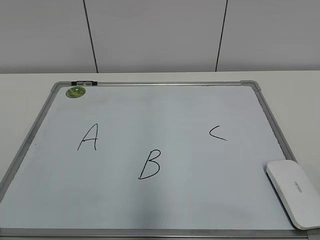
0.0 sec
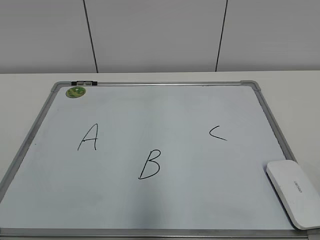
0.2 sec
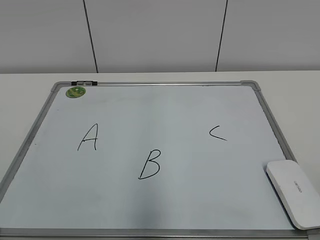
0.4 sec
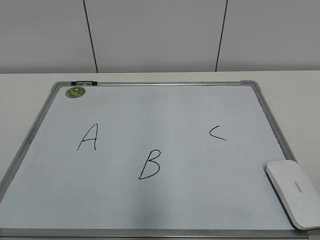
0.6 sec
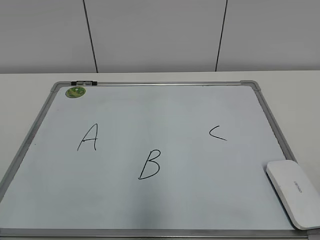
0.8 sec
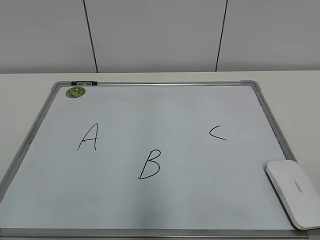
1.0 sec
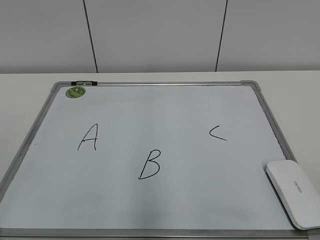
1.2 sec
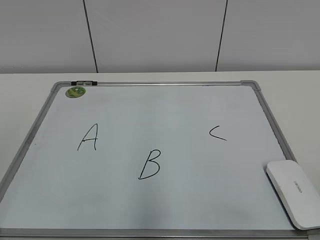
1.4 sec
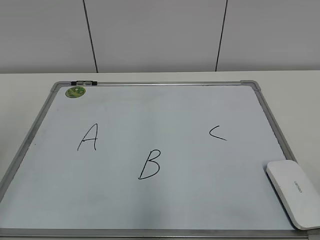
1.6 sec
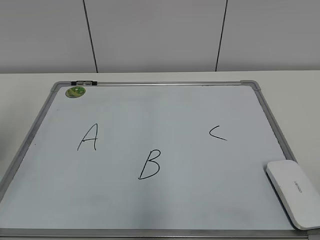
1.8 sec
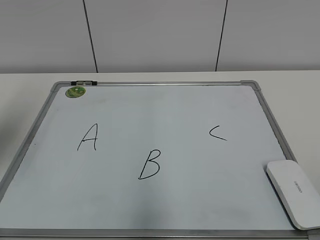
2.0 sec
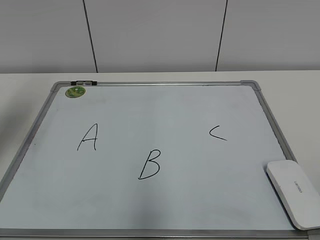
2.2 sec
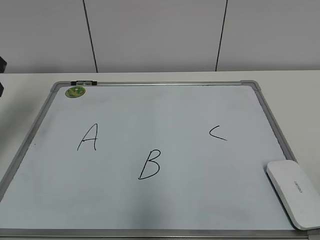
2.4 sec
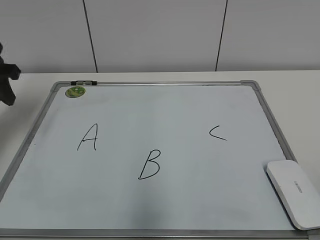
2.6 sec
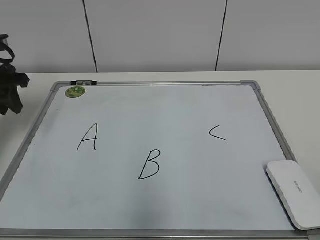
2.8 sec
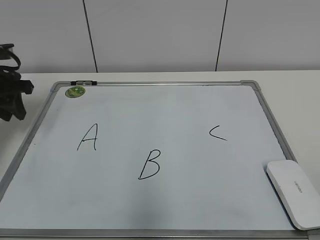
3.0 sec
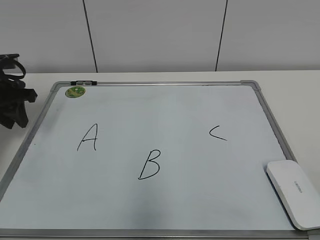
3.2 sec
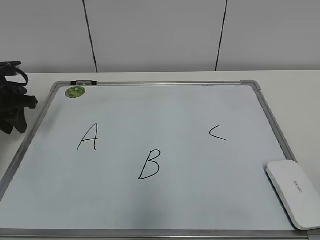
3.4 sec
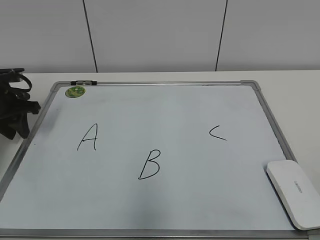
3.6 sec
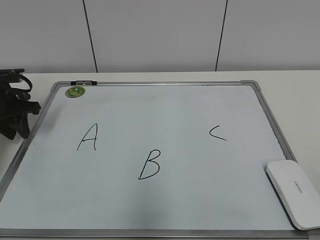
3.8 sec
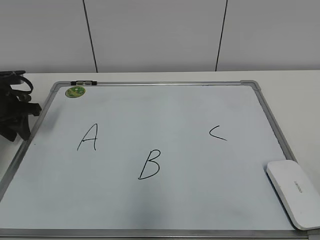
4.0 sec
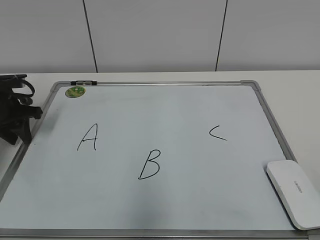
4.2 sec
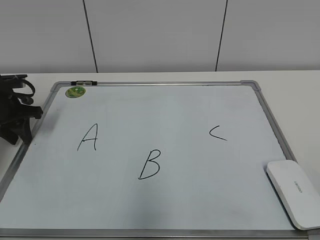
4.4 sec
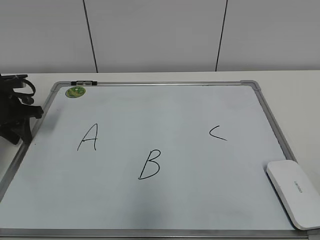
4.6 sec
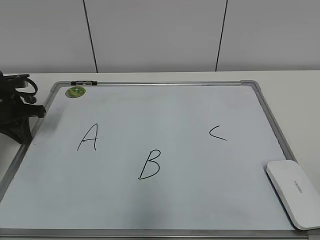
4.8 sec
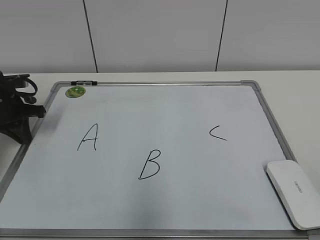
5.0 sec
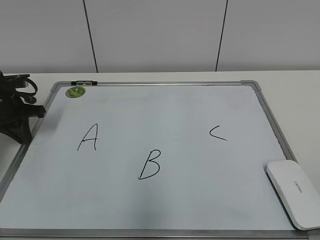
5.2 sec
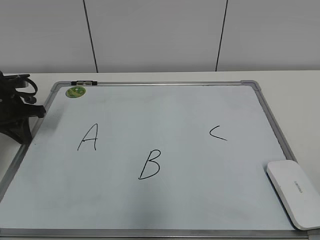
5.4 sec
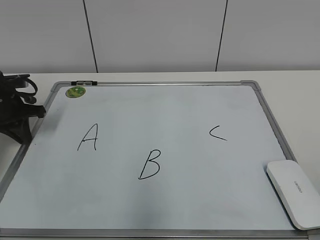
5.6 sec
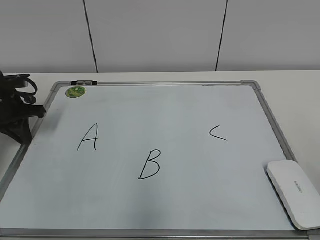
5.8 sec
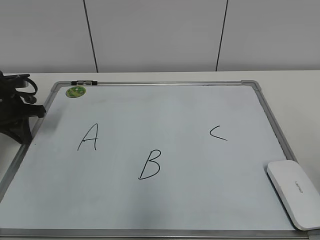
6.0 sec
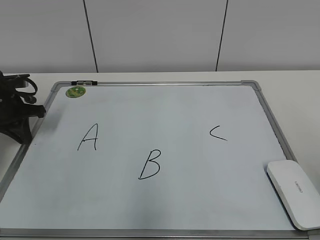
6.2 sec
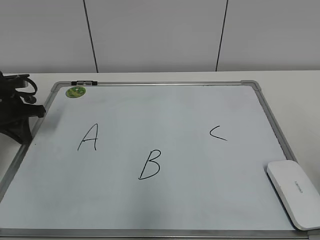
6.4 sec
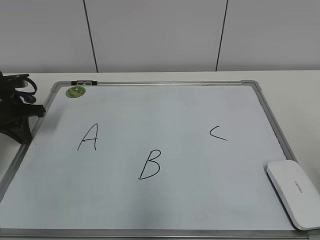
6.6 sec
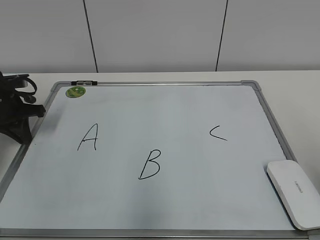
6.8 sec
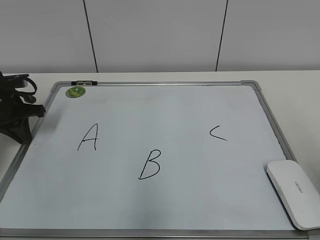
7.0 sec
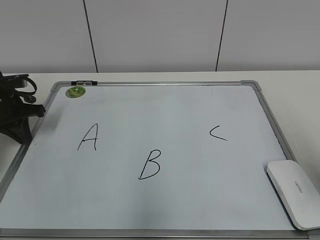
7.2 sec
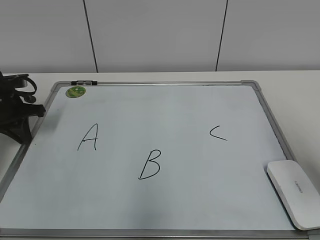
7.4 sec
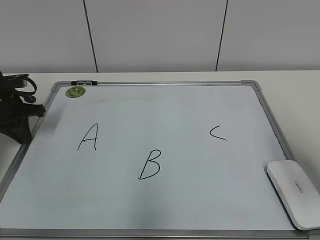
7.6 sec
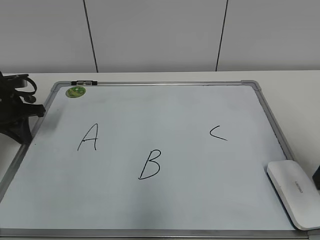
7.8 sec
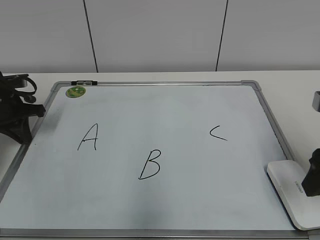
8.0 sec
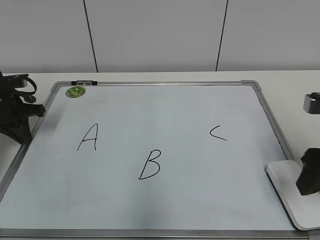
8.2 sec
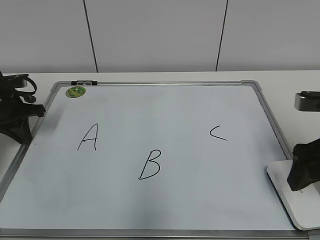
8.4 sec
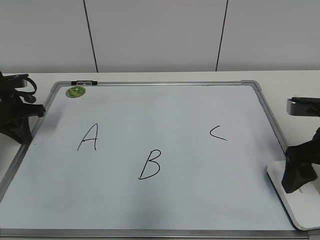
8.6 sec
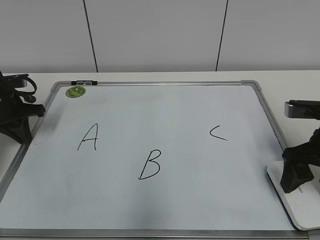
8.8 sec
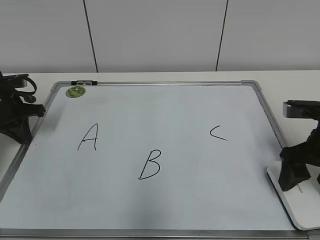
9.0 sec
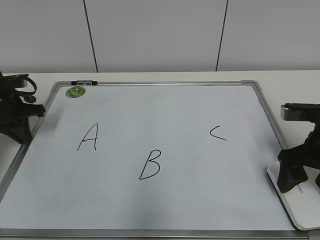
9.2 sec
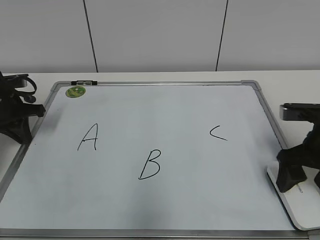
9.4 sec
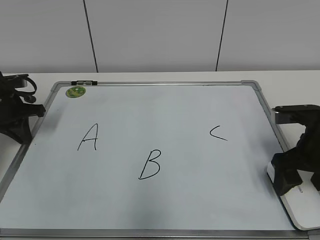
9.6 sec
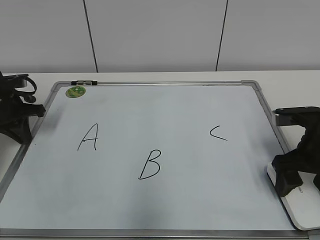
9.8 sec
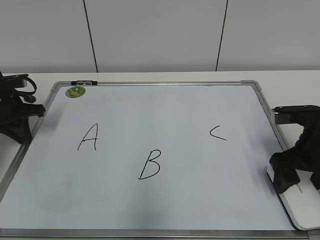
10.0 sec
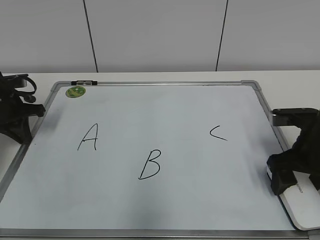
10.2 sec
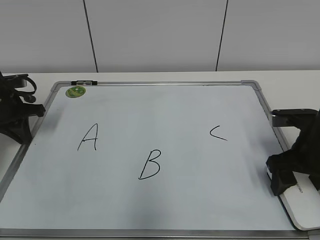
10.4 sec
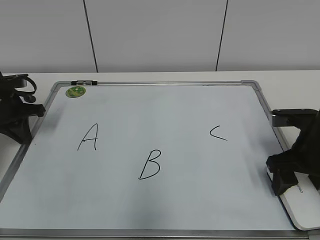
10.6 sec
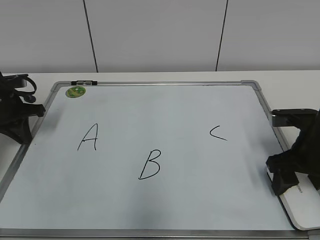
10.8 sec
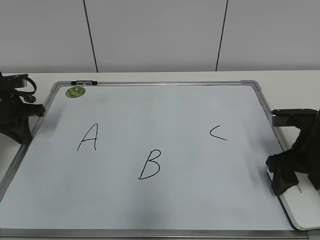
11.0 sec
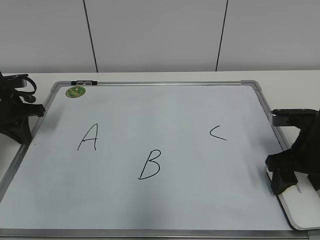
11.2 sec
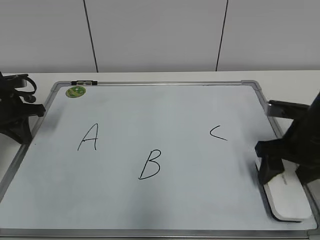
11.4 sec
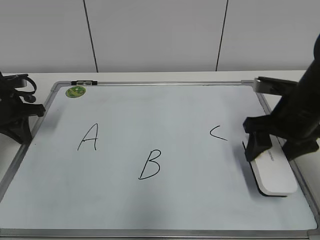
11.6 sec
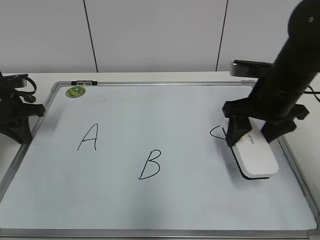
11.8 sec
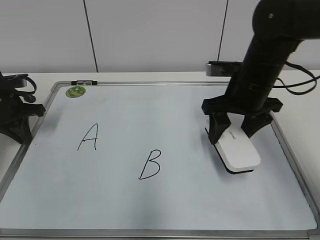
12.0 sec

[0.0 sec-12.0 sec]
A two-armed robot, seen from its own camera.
Task of the whole recording: pick up the eraser on the blackboard and erase the letter "B".
Step, 0.0 sec to 6.4 sec: Hold the drawing board steady with your left hand.
Step, 6.8 sec to 11.2 sec: Grab the eraser with your right hand.
1.6 sec to 3.0 sec: The left gripper heads forward, covering roughly 25 cm.
3.0 sec to 4.4 sec: The left gripper is displaced downward by about 5 cm.
4.4 sec to 6.0 sec: The left gripper closes.
6.0 sec to 7.6 sec: The right gripper heads forward and downward, covering approximately 15 cm.
7.6 sec to 9.0 sec: The right gripper goes some 10 cm downward and forward, and opens its fingers.
9.0 sec to 10.4 sec: The grippers make only small movements.
10.4 sec to 12.0 sec: The right gripper travels to the left, forward and upward by approximately 15 cm, and closes.

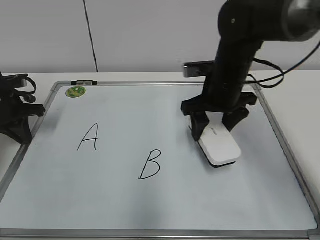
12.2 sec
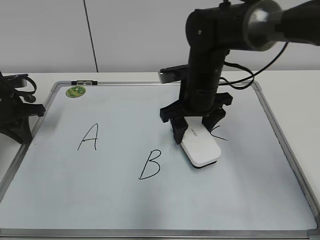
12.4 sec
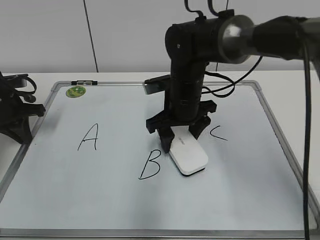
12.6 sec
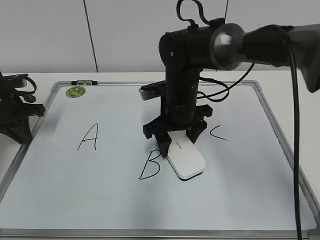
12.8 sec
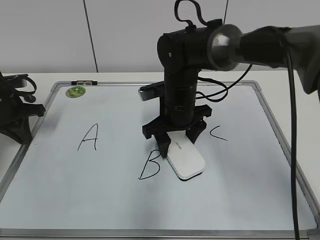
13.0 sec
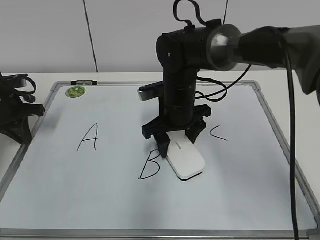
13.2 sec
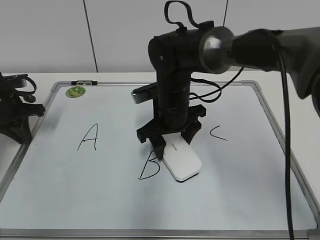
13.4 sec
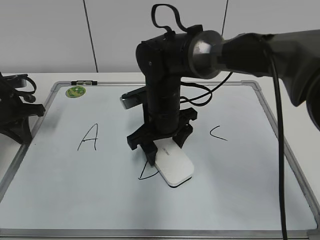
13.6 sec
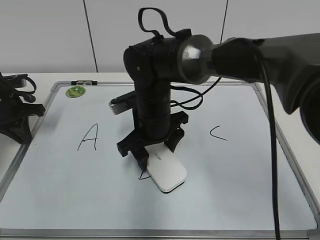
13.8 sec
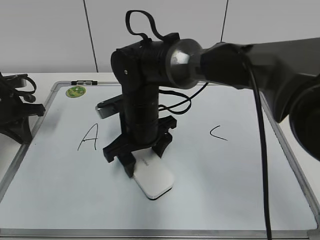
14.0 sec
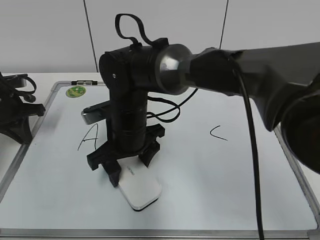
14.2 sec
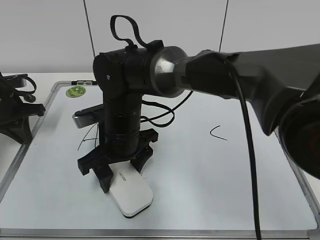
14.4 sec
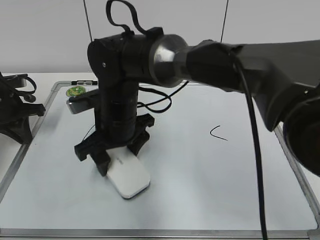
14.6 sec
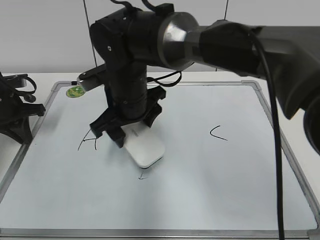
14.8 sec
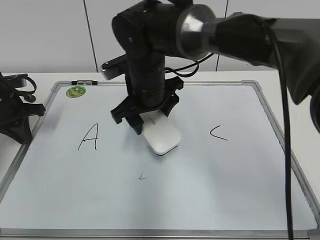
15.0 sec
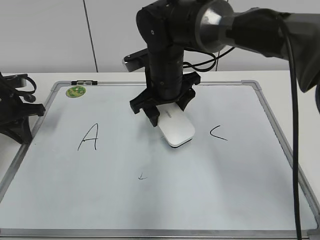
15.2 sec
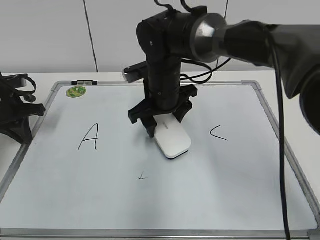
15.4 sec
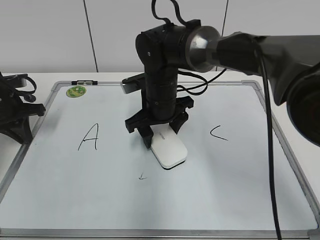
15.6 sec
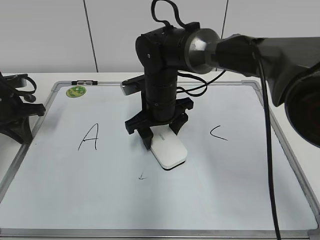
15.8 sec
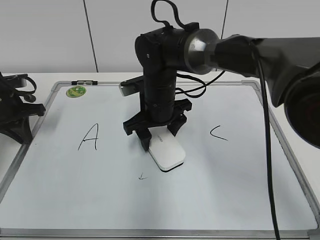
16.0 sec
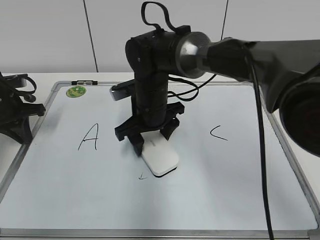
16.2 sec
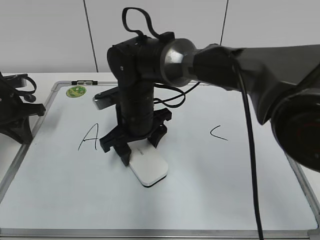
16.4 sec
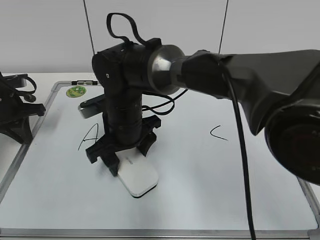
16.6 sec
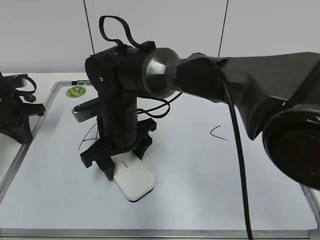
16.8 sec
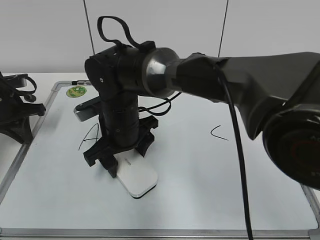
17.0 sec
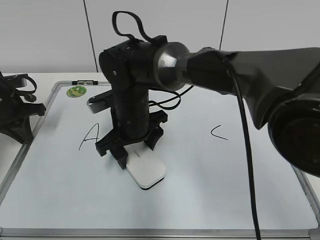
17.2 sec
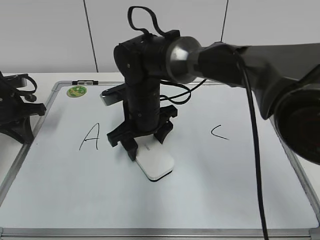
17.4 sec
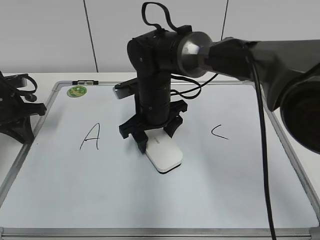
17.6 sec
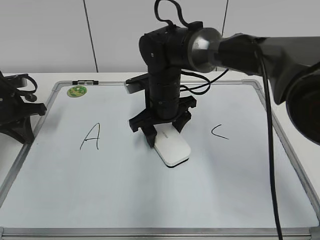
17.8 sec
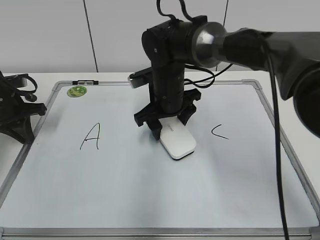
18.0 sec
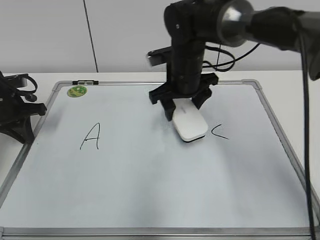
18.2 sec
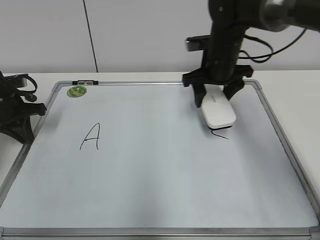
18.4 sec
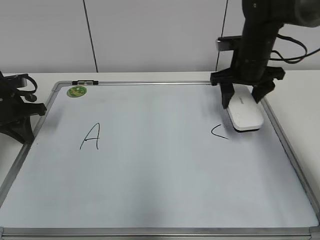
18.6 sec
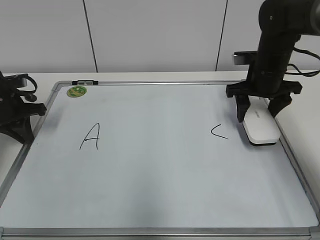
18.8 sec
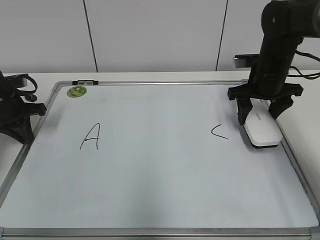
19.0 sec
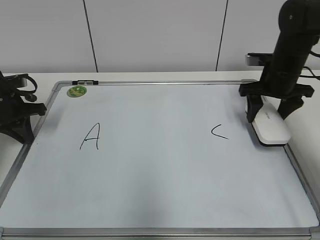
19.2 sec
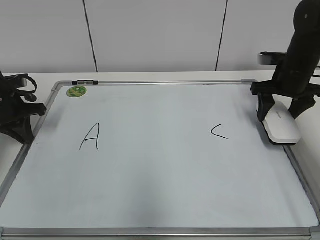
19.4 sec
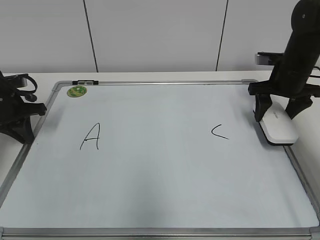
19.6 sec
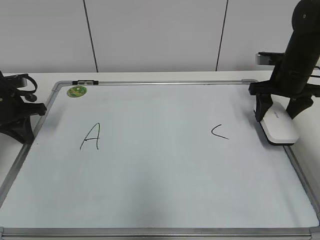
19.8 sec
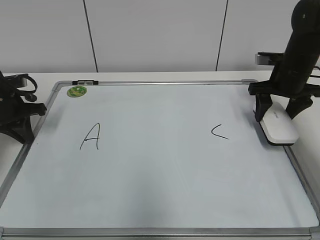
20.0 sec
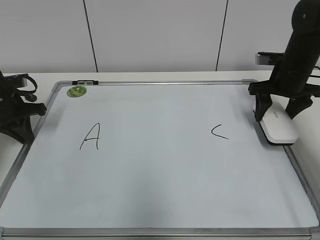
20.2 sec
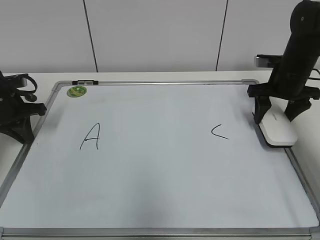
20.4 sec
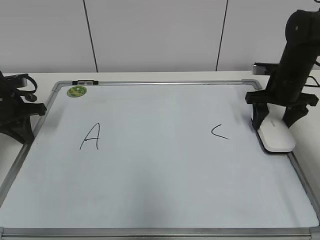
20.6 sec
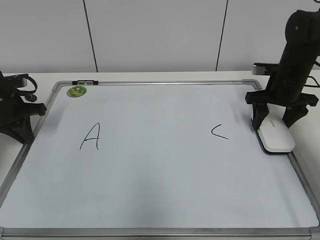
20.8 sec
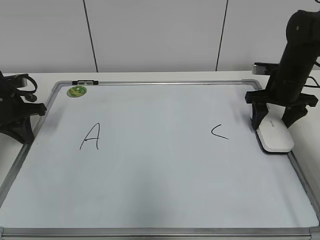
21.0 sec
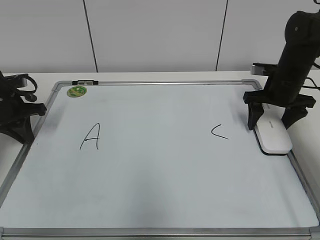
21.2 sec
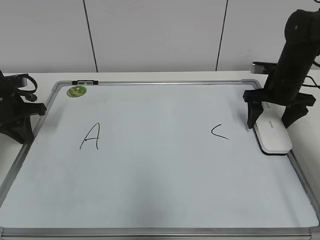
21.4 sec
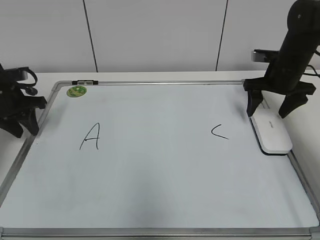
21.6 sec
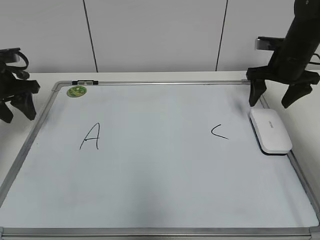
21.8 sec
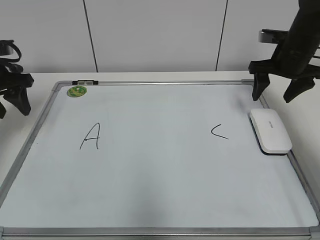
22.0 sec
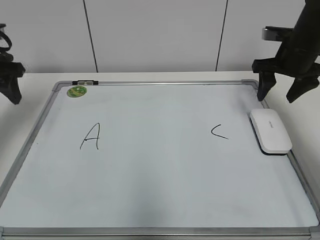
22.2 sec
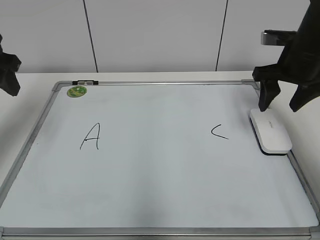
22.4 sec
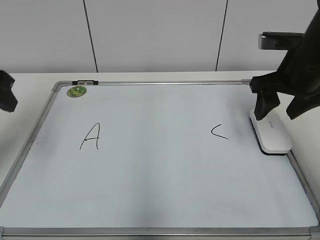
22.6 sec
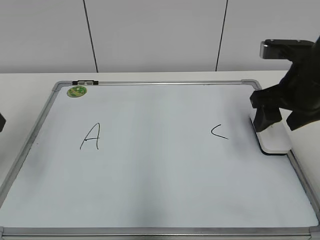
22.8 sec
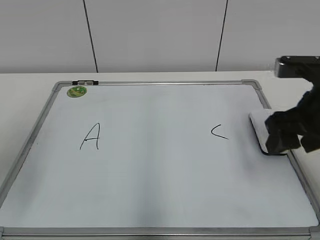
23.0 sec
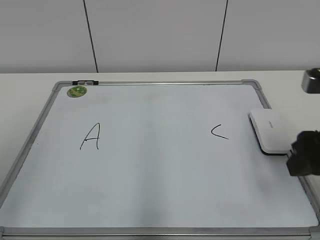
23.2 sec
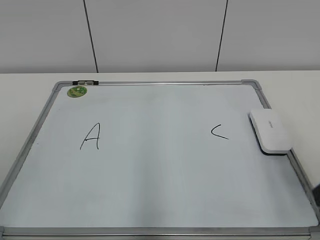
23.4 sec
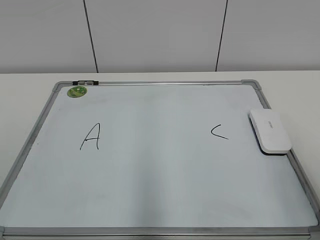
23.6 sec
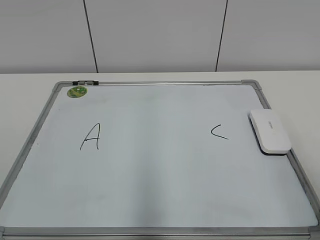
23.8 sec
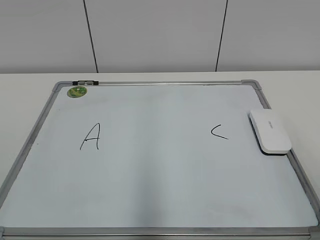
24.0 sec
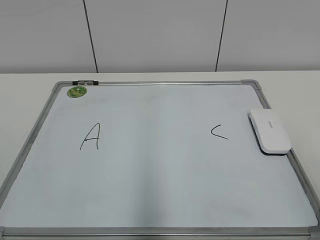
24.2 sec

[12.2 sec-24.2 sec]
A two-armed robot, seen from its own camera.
Task of the whole recording: pick up the eraser on the blackboard and erase the letter "B".
Step, 12.2 sec to 17.8 sec: Erase the letter B with your right hand.
Step, 18.0 sec to 21.0 sec: Put down the eraser with your right hand.
12.2 sec to 13.8 sec: The right gripper shifts about 15 cm to the left.
13.8 sec to 15.2 sec: The right gripper travels upward by about 5 cm, and reaches some 5 cm to the left, then returns.
15.2 sec to 16.6 sec: The right gripper goes about 10 cm to the left and backward.
16.6 sec to 18.2 sec: The right gripper shifts approximately 15 cm to the right and forward.
18.2 sec to 19.8 sec: The right gripper heads to the right, covering roughly 20 cm.
19.8 sec to 21.2 sec: The right gripper opens its fingers.
21.2 sec to 22.6 sec: Both grippers travel together upward and backward, roughly 15 cm. The left gripper opens; the right gripper closes up.
22.6 sec to 24.2 sec: The two grippers go some 30 cm backward.
